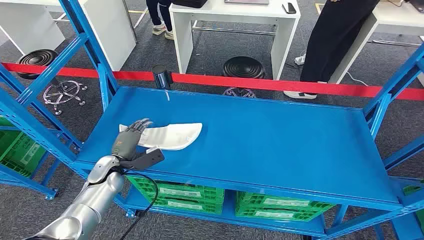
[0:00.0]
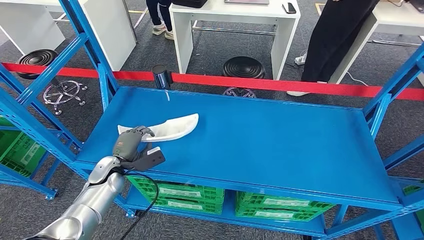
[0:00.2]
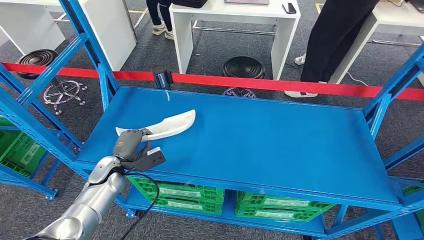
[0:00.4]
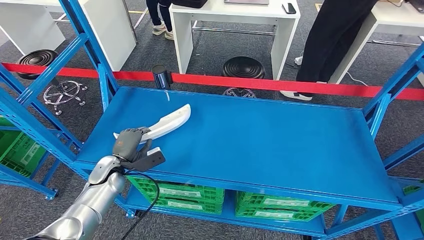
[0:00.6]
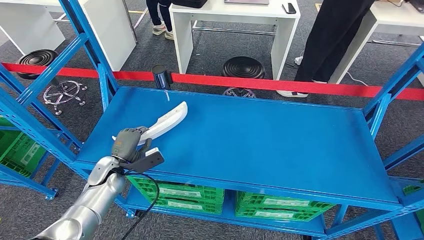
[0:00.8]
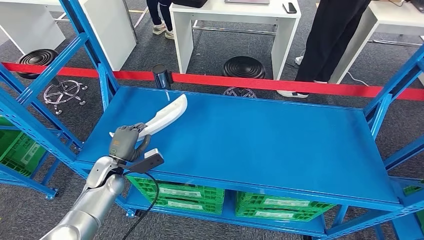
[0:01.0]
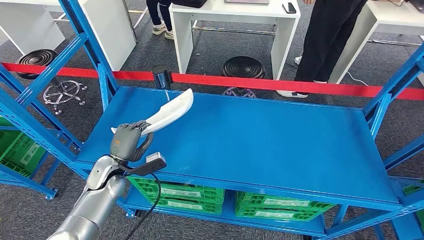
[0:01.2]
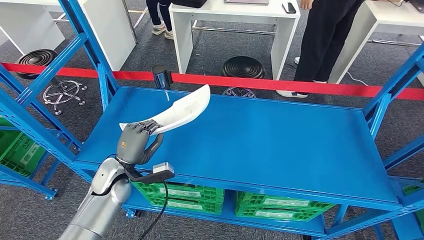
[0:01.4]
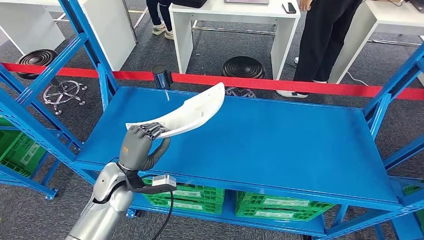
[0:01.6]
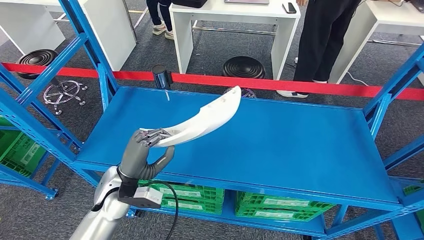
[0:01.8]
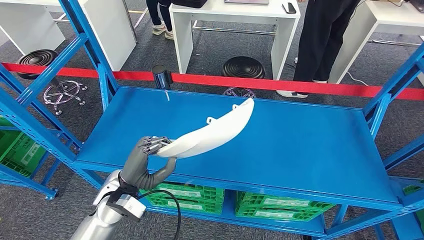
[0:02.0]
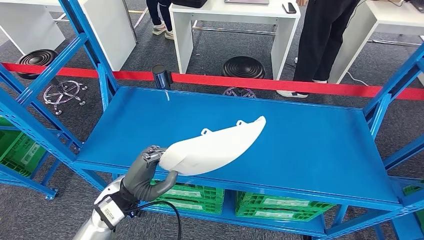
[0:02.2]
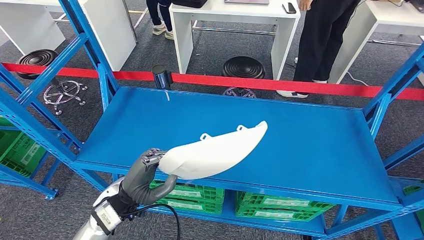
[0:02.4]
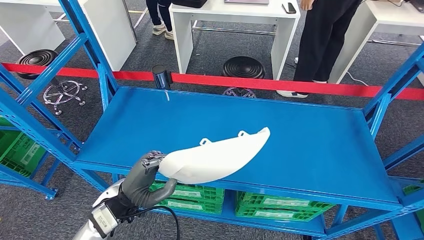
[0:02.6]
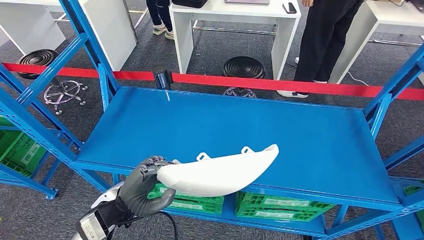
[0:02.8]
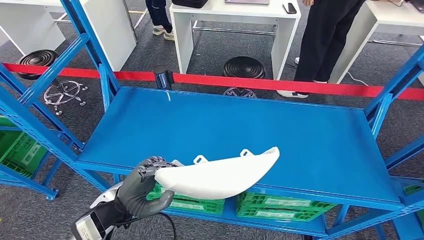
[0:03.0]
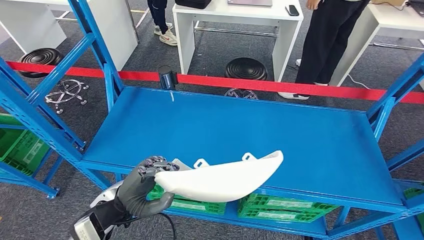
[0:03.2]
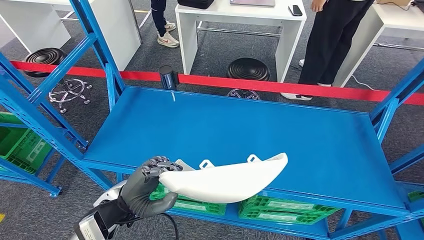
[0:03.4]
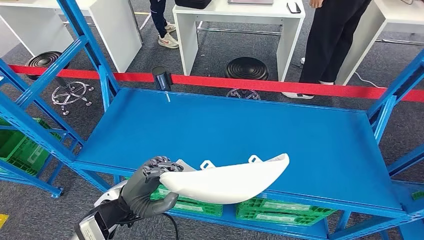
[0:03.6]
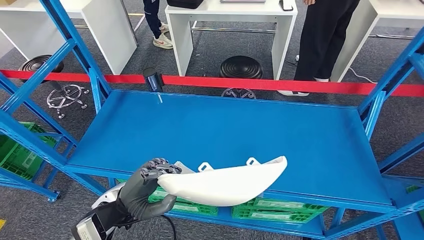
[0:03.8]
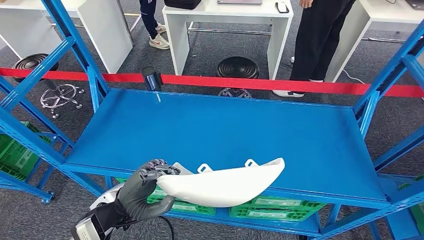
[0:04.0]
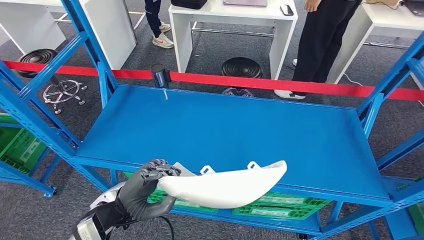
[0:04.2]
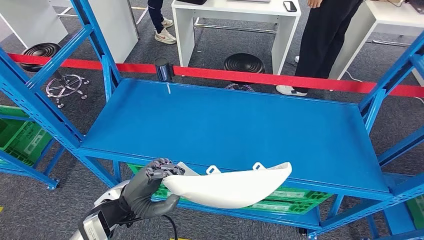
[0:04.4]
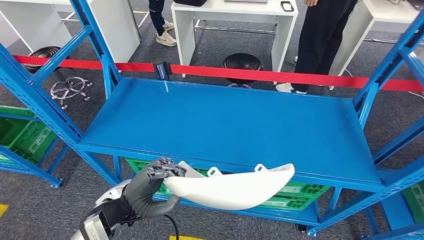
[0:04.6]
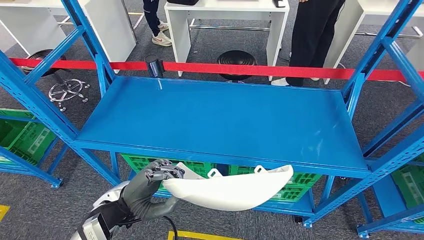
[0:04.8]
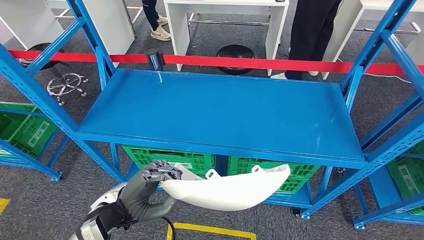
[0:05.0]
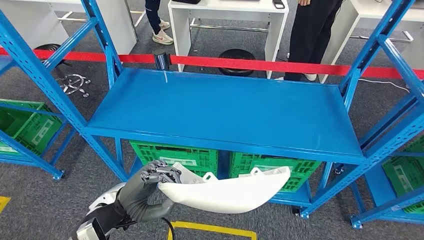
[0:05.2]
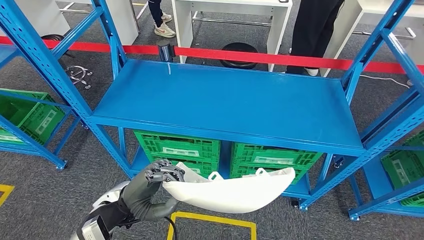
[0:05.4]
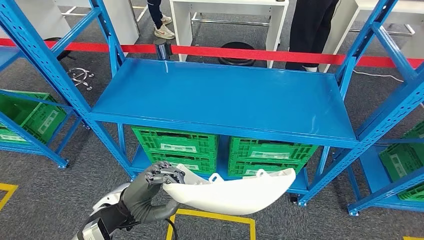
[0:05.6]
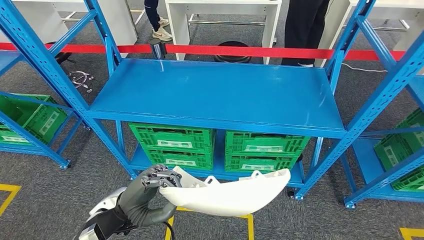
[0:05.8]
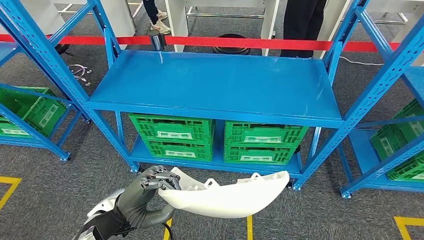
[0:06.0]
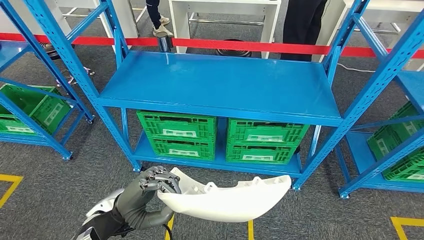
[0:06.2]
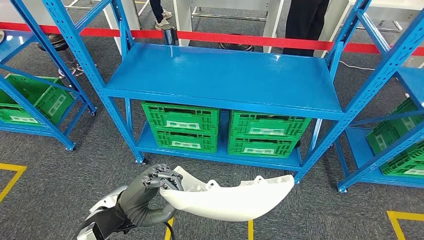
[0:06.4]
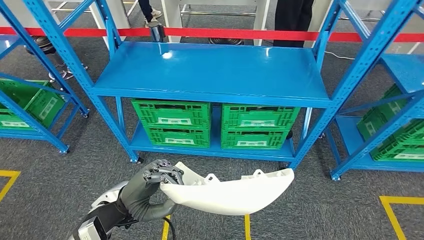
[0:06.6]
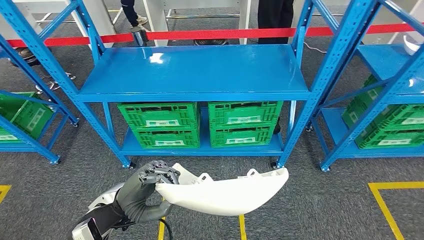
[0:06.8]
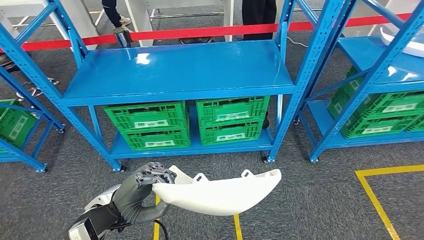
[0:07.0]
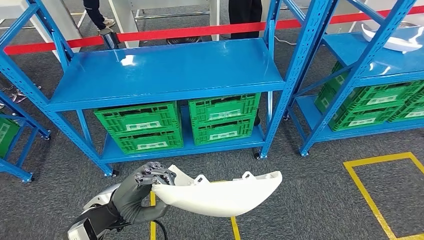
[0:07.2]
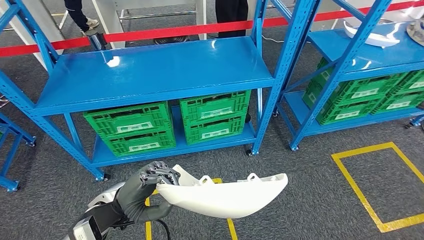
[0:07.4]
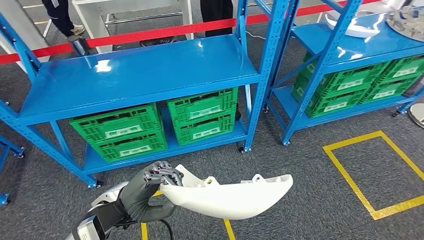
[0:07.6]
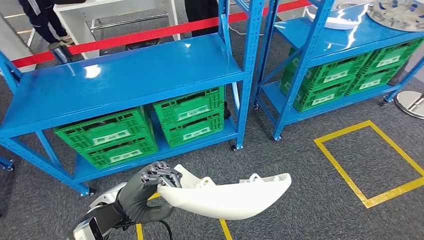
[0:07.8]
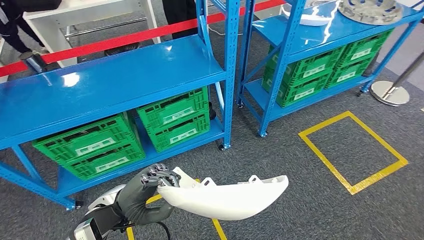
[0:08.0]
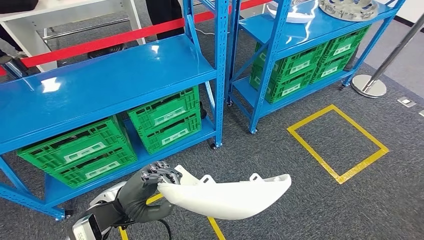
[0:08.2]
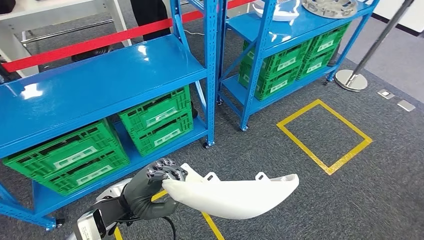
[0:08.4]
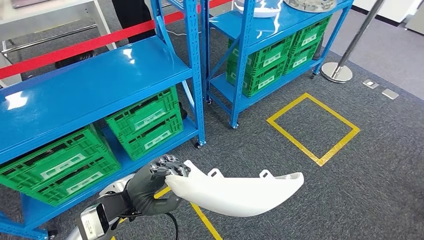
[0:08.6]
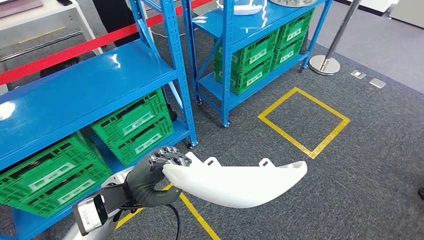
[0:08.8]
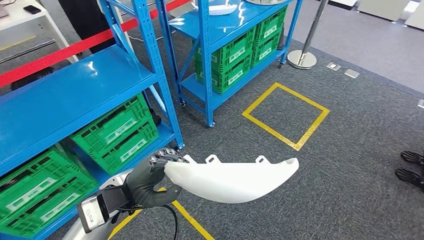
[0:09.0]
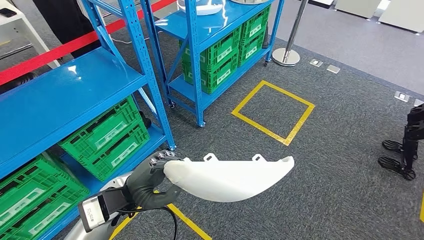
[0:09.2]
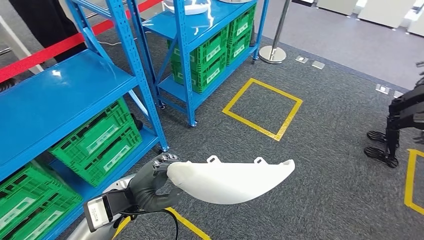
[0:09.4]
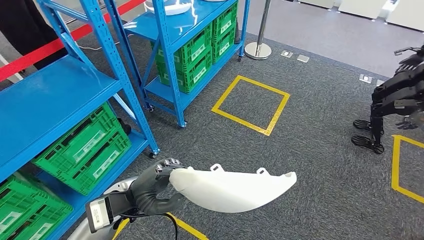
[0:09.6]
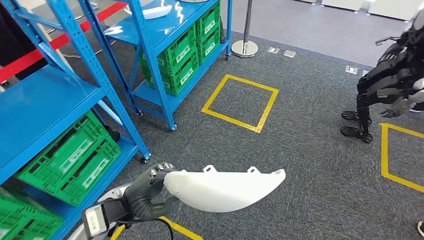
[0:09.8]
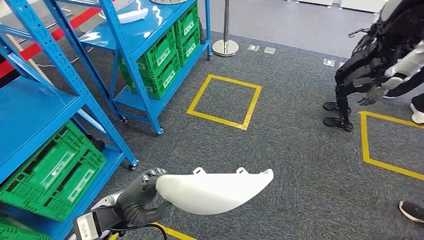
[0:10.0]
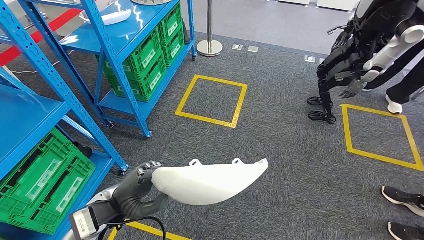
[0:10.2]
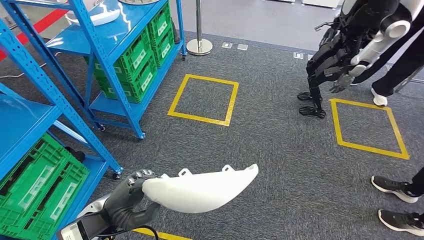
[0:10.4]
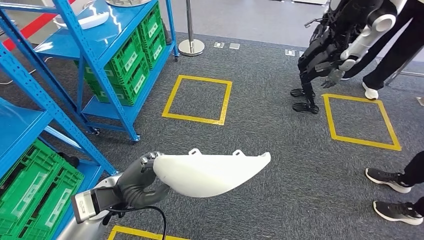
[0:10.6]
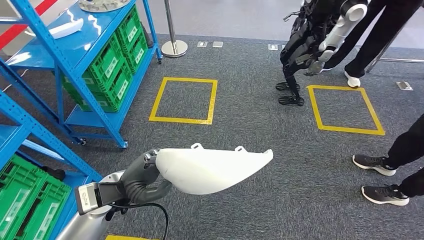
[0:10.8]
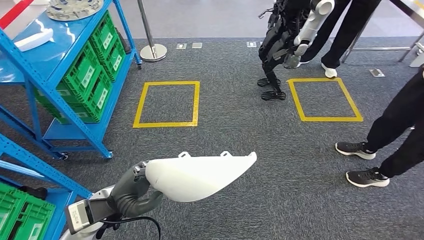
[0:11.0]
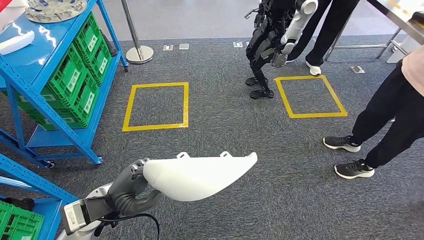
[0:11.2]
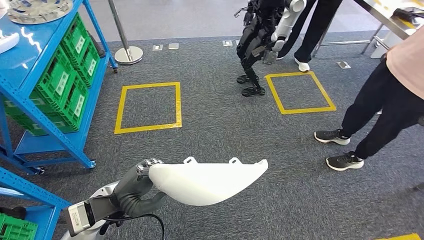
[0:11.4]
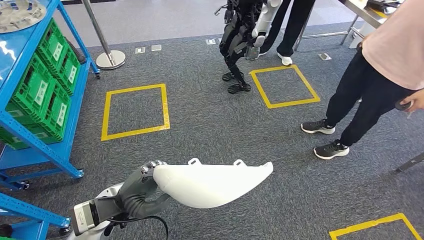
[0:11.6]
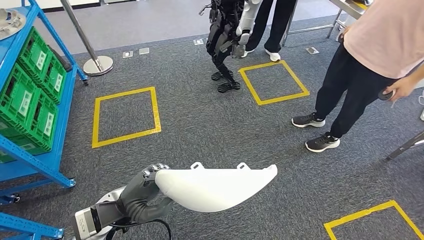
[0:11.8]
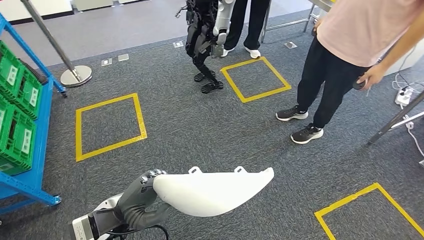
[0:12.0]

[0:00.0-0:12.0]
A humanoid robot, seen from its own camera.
Step, 0:00.0 to 0:02.0: Pick up the small component from the shelf.

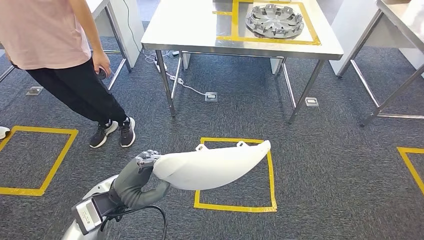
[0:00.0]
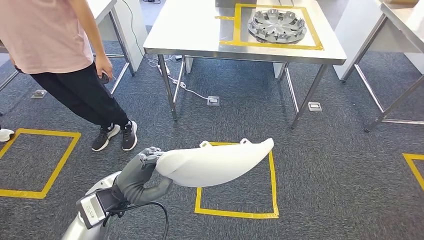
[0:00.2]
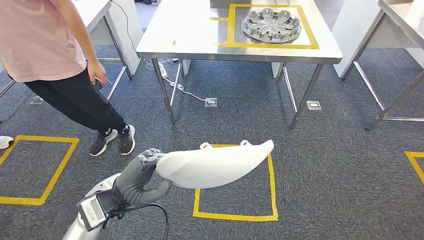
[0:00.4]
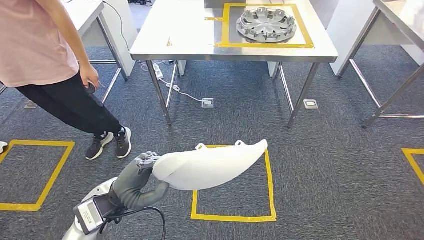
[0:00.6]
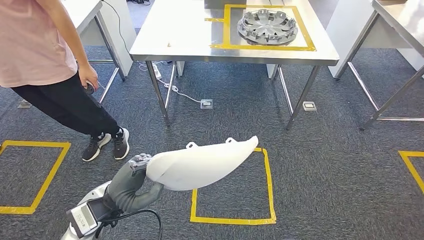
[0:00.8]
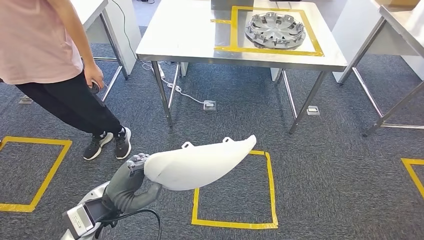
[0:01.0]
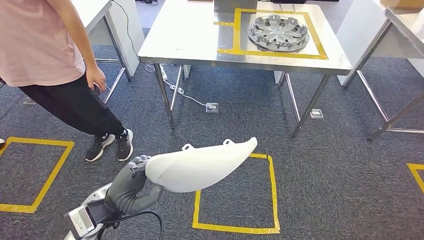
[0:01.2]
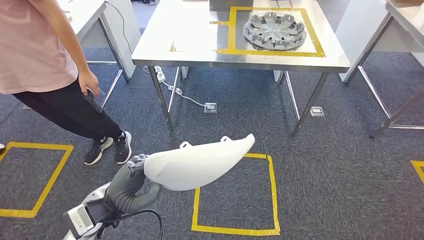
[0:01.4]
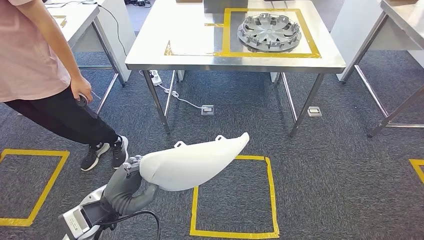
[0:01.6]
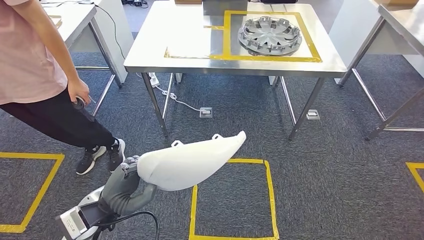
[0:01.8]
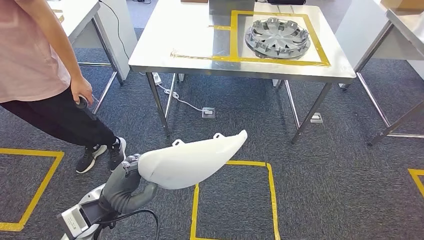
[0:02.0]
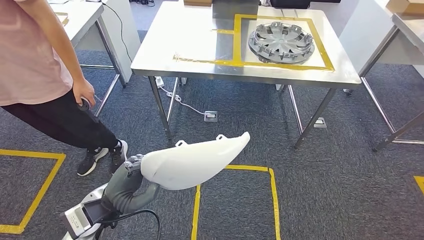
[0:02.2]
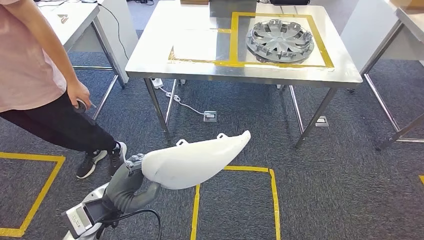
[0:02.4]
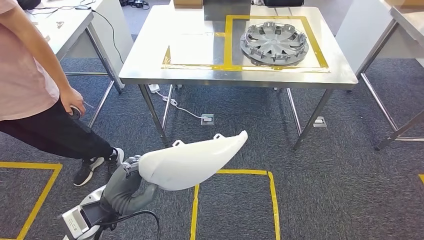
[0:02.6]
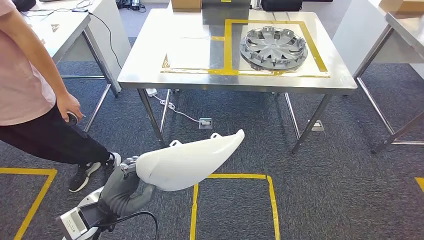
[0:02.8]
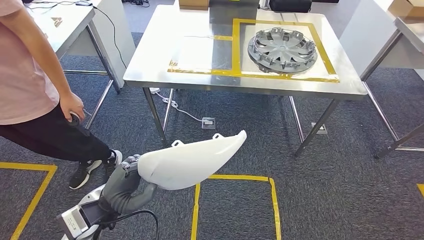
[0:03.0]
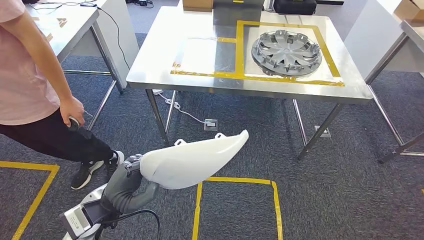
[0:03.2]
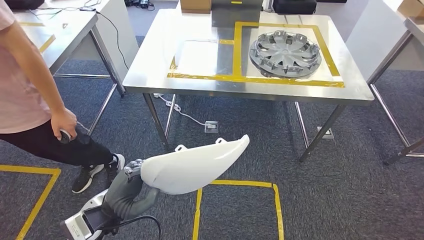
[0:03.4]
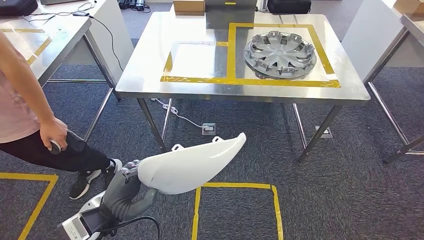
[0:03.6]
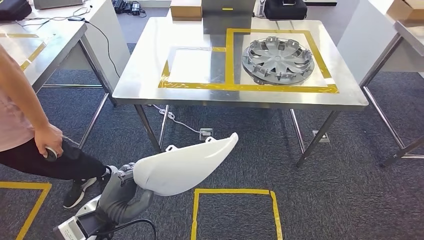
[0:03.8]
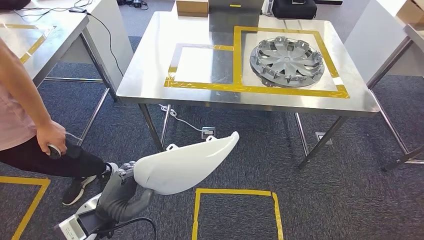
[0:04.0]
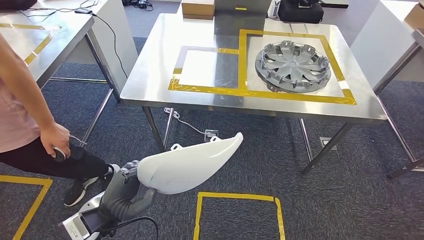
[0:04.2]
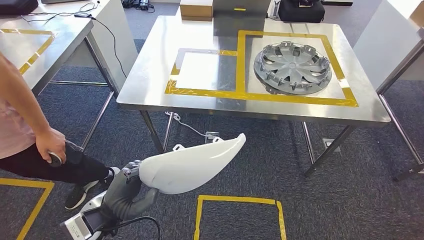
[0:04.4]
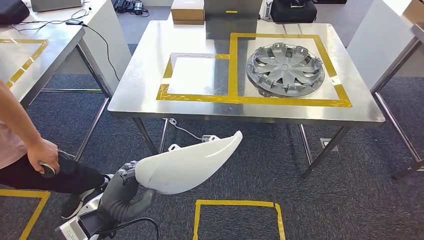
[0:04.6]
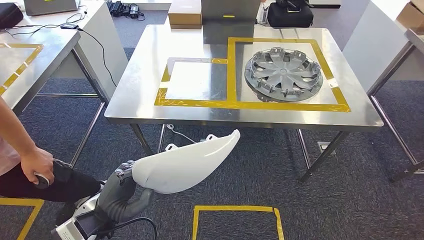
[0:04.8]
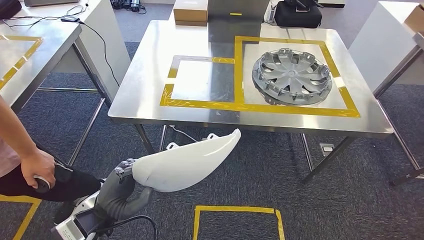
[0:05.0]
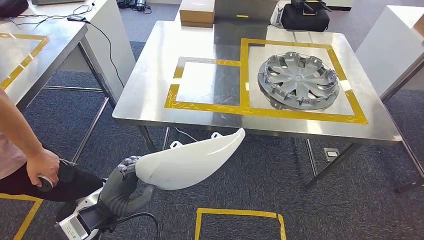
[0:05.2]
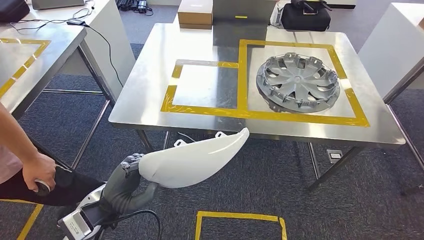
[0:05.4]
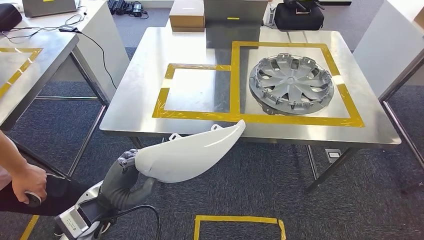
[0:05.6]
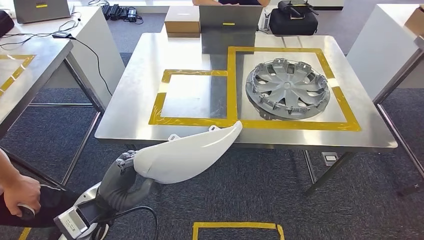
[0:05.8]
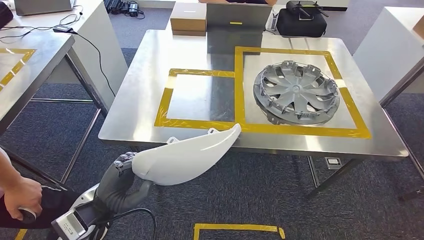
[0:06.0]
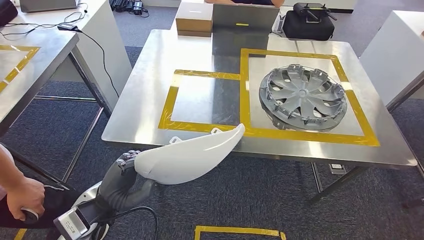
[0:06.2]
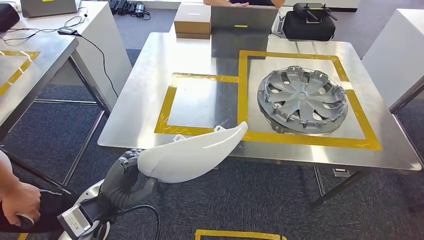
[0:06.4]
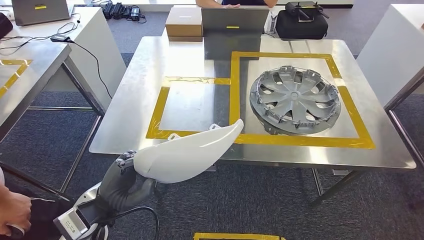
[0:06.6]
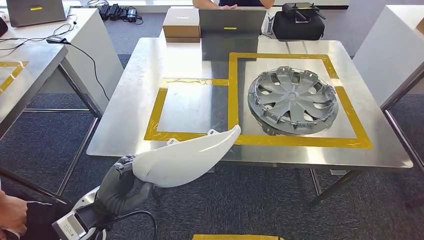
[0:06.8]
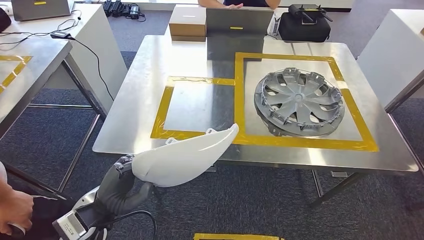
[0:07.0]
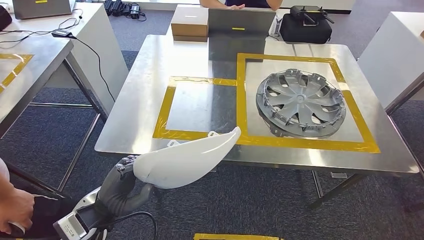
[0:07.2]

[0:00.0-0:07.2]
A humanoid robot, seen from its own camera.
Step, 0:00.0 to 0:06.4: Move the small component to the workbench.
